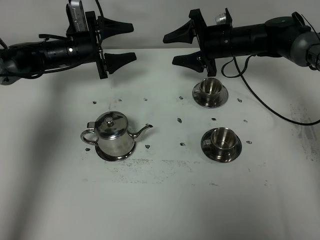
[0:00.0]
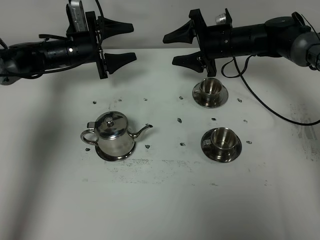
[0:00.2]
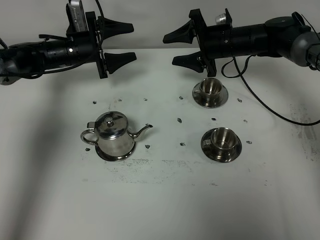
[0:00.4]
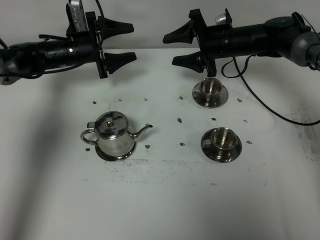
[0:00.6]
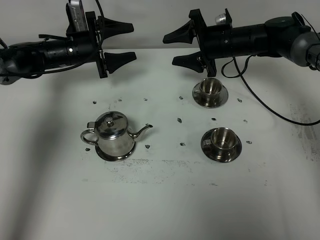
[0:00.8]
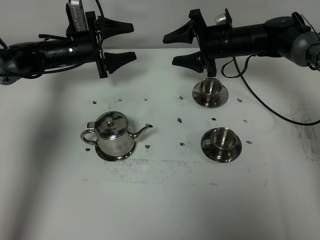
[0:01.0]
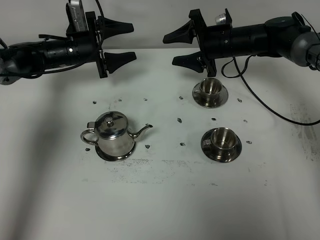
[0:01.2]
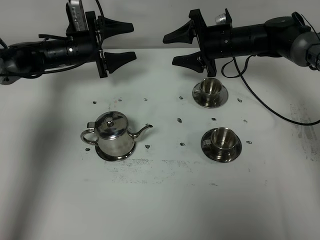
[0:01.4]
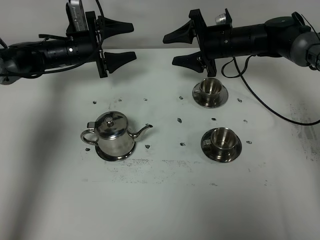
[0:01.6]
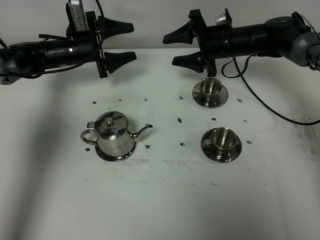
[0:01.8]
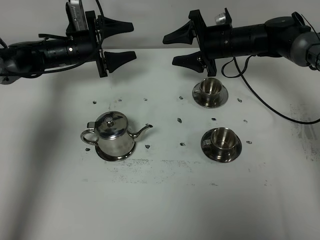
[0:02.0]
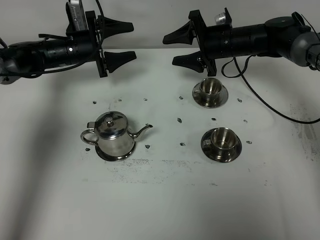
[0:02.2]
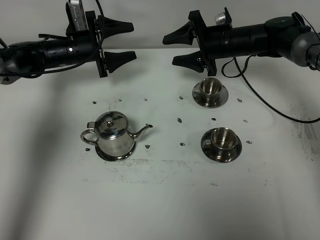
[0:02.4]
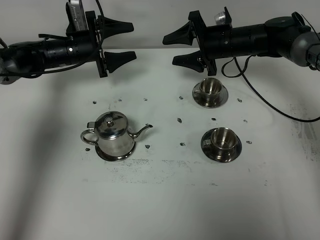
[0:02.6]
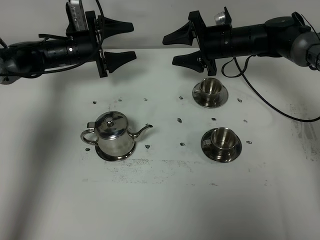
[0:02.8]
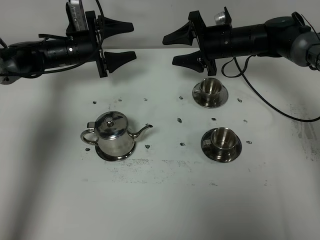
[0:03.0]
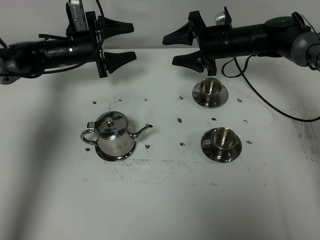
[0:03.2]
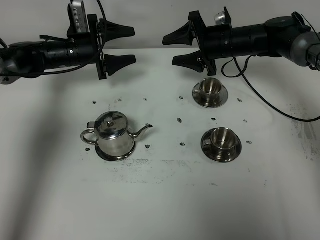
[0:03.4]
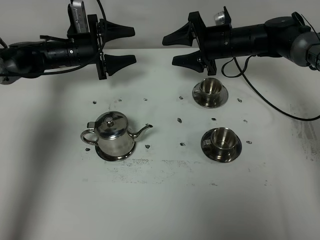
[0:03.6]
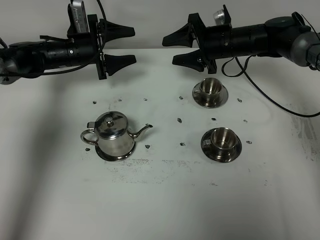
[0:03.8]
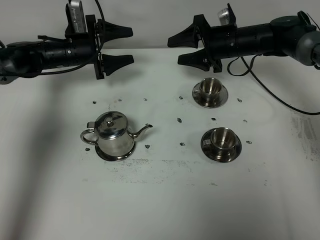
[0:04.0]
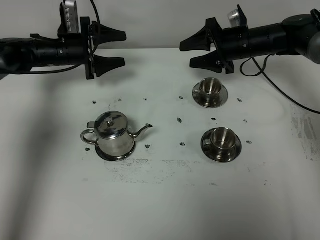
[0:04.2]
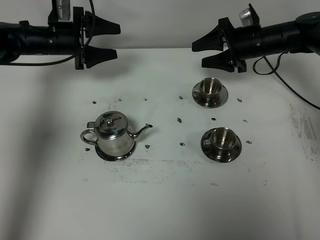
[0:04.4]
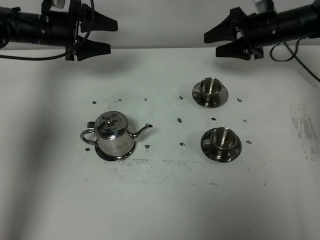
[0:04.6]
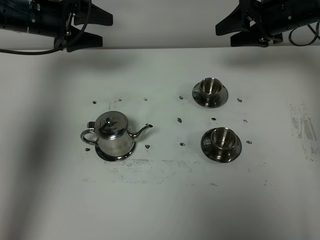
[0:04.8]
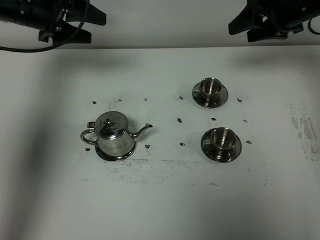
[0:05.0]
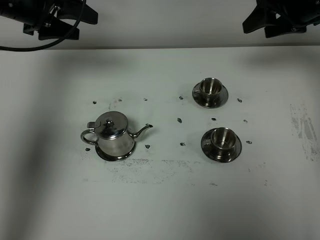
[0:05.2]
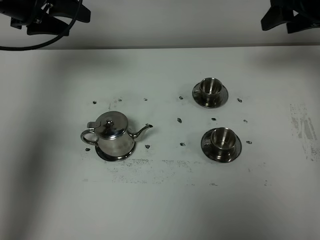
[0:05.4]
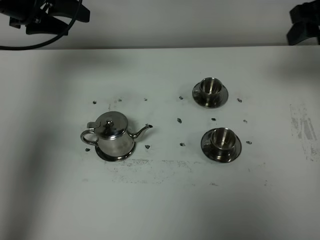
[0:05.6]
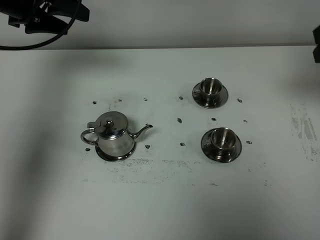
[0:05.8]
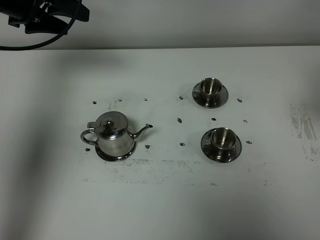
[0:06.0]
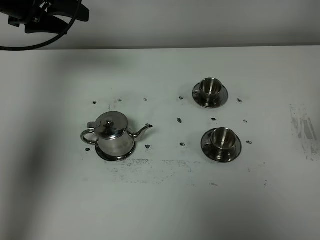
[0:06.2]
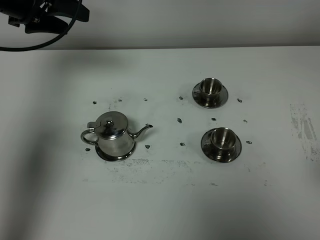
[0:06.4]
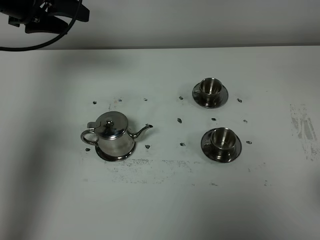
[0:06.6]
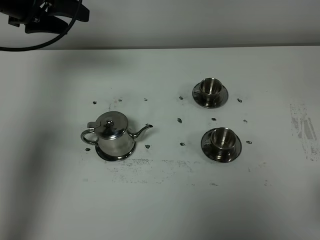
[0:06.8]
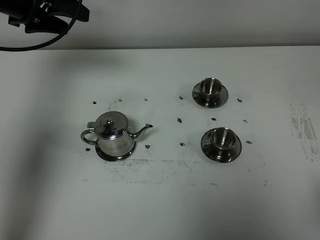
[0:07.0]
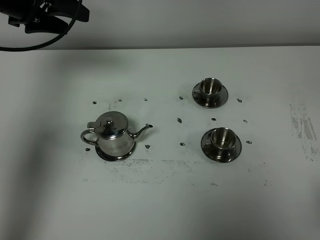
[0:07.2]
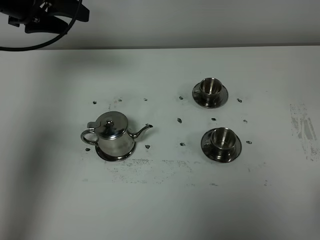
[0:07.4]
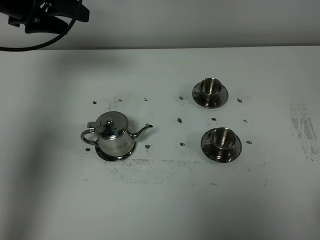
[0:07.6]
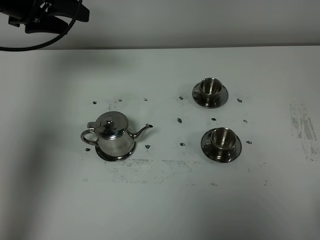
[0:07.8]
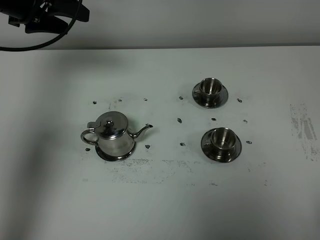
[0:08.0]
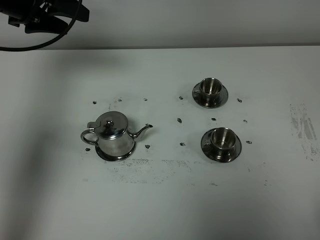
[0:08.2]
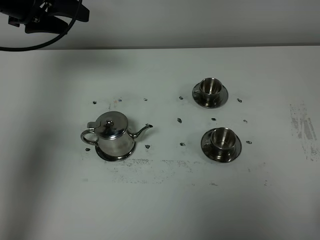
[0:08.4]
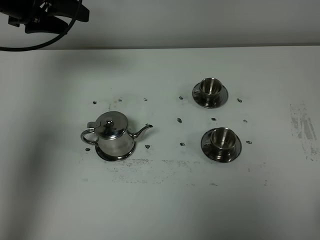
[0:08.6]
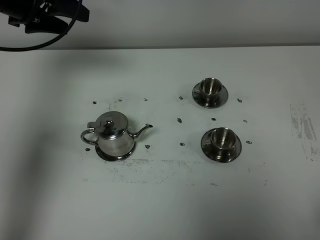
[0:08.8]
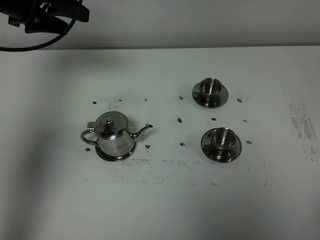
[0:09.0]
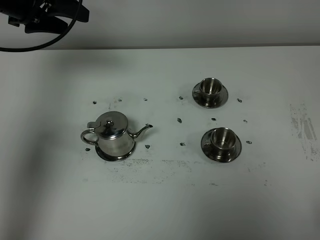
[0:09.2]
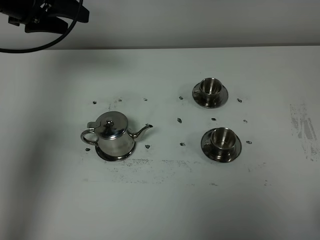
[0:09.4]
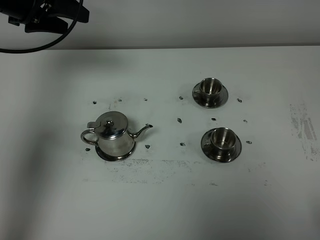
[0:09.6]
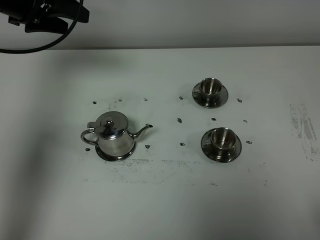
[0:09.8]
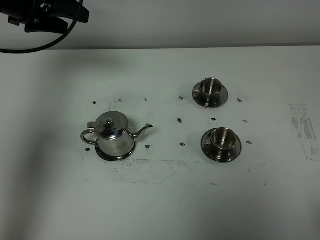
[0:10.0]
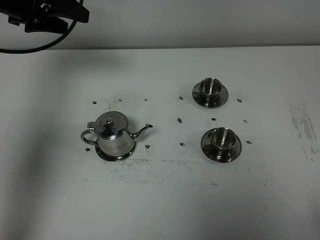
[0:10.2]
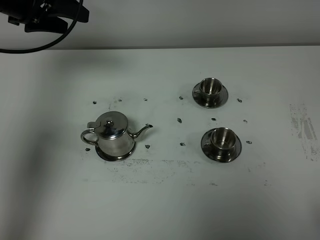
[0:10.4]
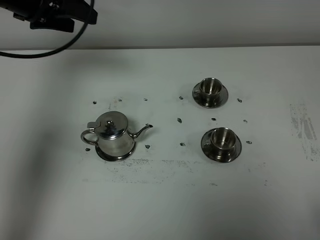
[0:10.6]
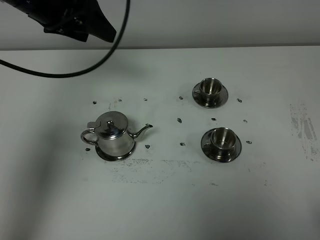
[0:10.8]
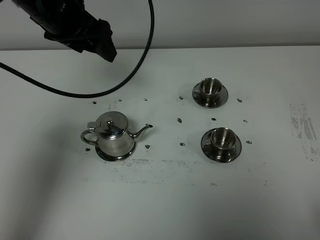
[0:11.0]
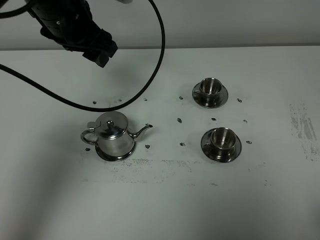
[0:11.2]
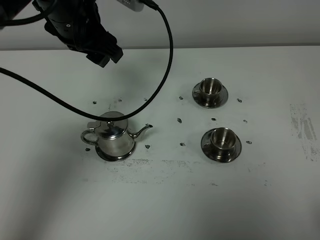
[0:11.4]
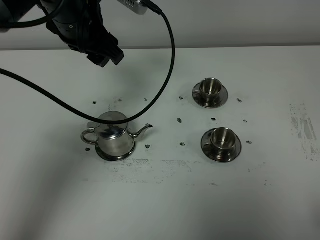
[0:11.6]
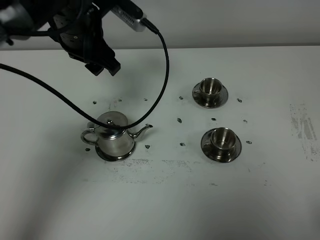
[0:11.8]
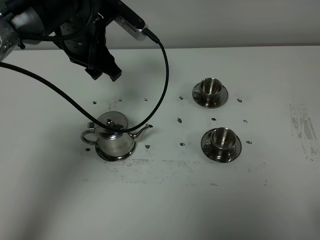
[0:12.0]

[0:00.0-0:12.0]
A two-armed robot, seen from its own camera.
Task of the whole recording: grasp the stainless steel teapot and pour the tea into the two stainless steel teacups one by one, put the stainless steel teapot back in its original place.
0:00.0 to 0:03.0: The two grippers keep their place.
0:03.0 to 0:04.4: The right gripper heads to the right, covering about 5 cm. The left gripper moves some 5 cm.
0:04.4 to 0:06.0: The left gripper moves upward and backward, approximately 15 cm, while the right gripper travels backward and upward by about 30 cm.
0:07.6 to 0:10.4: Neither gripper changes place.
0:10.4 to 0:12.0: The left gripper heads to the right, covering some 15 cm.

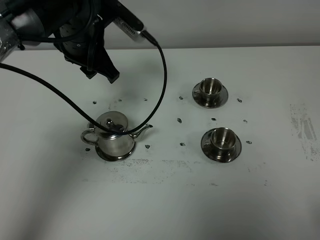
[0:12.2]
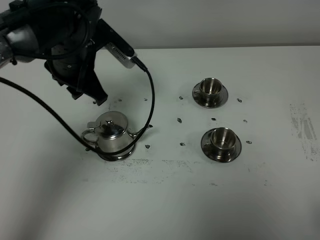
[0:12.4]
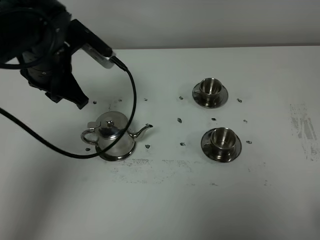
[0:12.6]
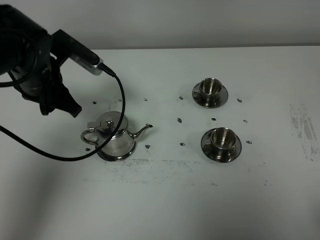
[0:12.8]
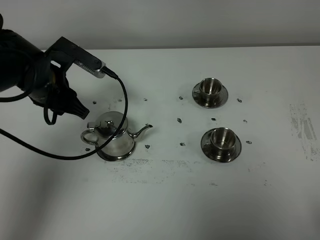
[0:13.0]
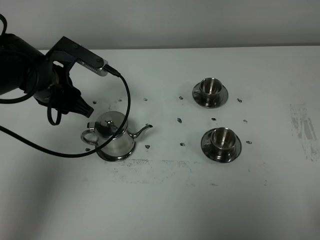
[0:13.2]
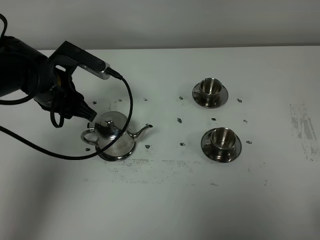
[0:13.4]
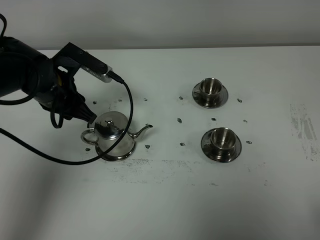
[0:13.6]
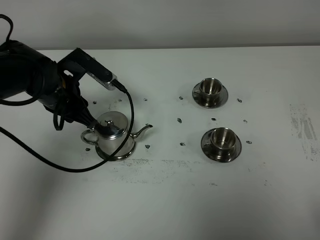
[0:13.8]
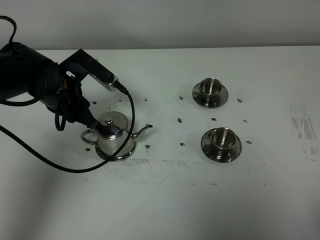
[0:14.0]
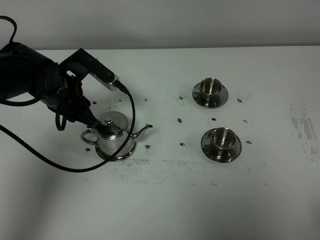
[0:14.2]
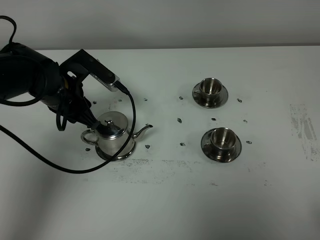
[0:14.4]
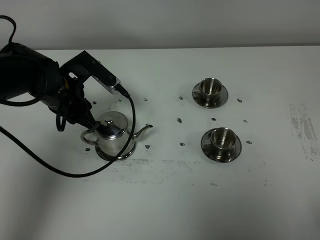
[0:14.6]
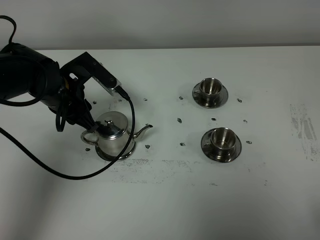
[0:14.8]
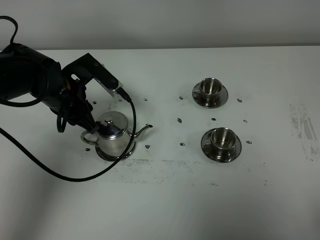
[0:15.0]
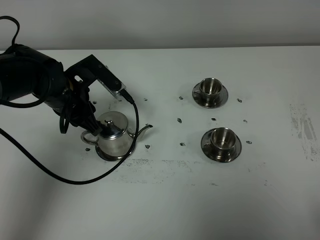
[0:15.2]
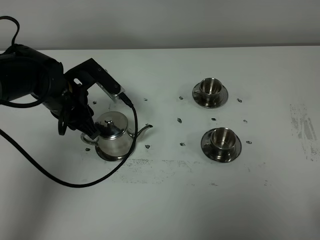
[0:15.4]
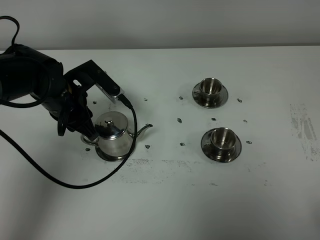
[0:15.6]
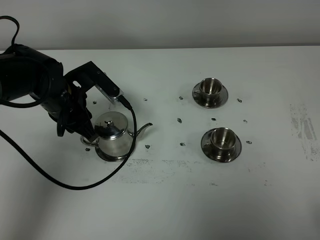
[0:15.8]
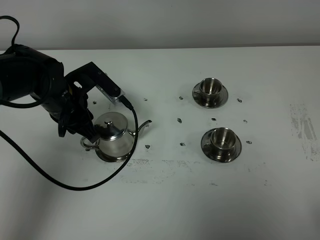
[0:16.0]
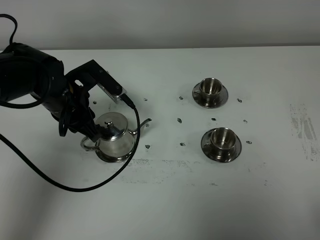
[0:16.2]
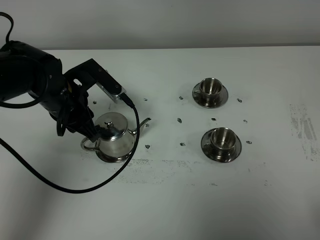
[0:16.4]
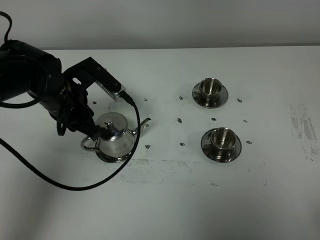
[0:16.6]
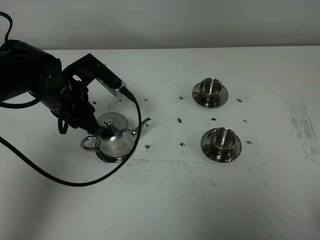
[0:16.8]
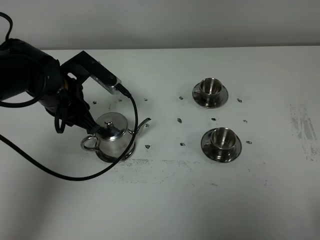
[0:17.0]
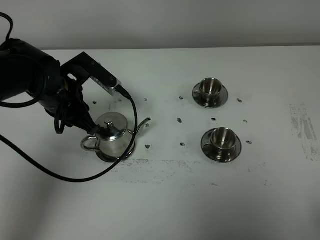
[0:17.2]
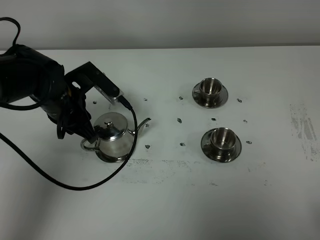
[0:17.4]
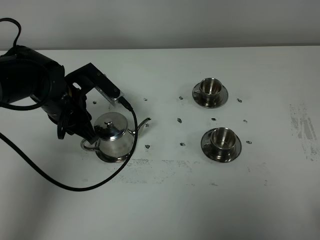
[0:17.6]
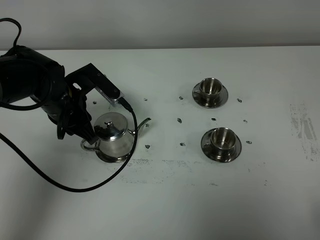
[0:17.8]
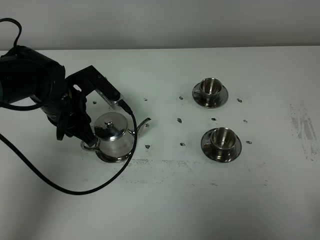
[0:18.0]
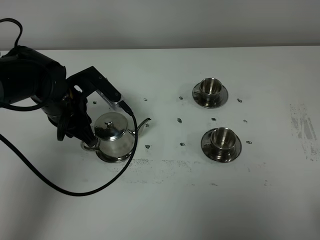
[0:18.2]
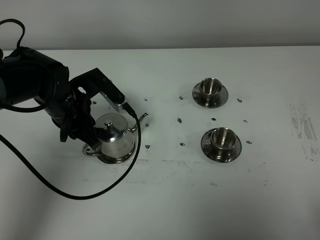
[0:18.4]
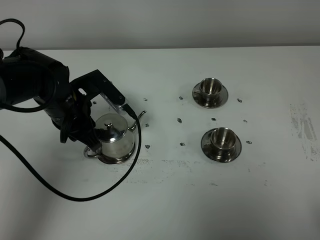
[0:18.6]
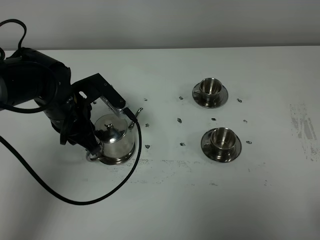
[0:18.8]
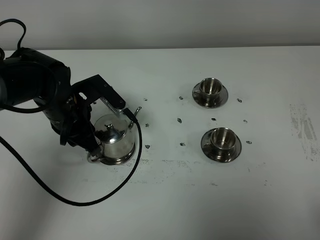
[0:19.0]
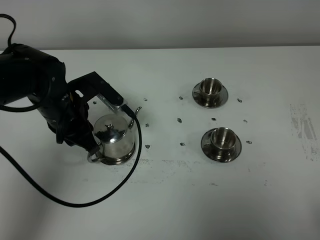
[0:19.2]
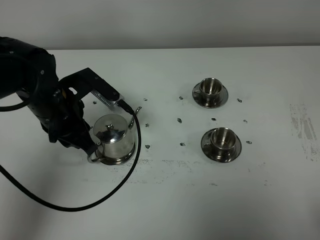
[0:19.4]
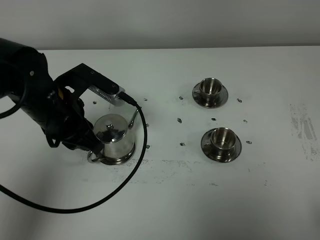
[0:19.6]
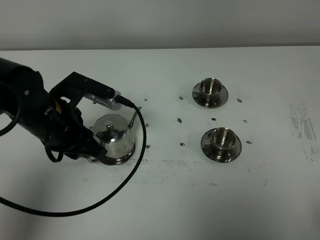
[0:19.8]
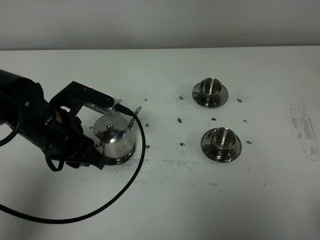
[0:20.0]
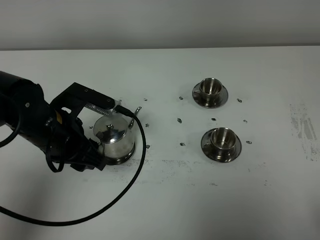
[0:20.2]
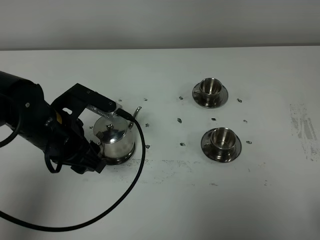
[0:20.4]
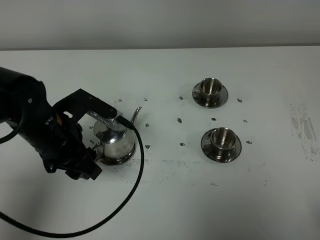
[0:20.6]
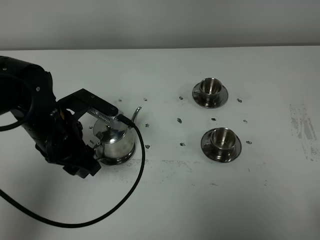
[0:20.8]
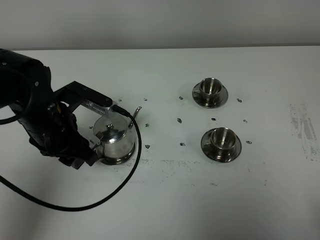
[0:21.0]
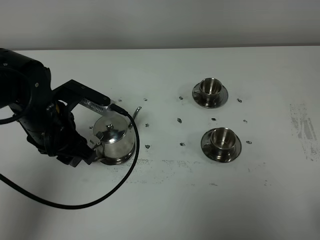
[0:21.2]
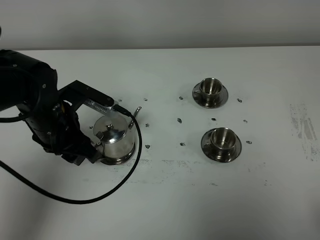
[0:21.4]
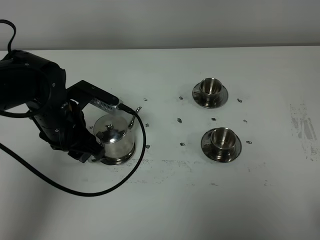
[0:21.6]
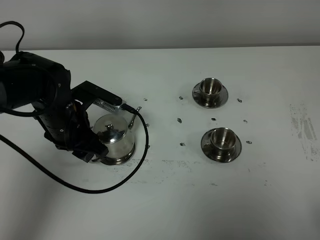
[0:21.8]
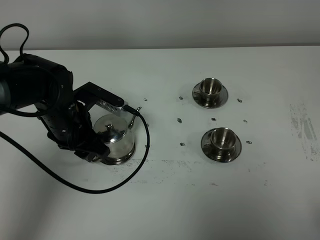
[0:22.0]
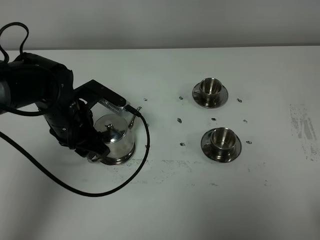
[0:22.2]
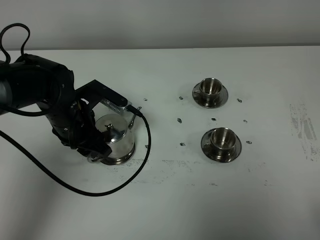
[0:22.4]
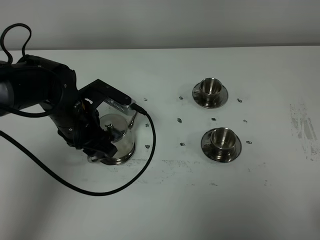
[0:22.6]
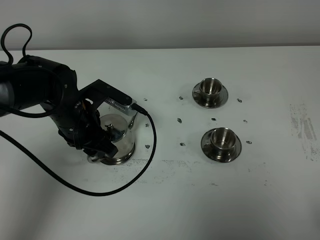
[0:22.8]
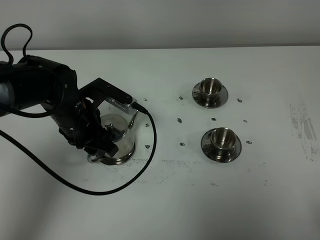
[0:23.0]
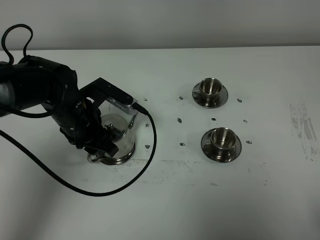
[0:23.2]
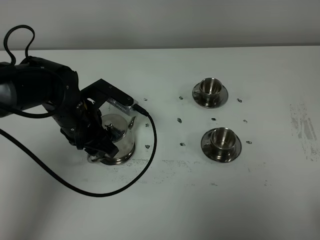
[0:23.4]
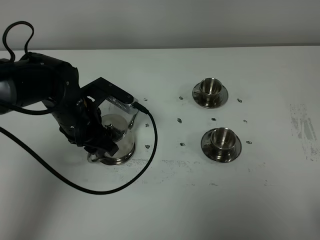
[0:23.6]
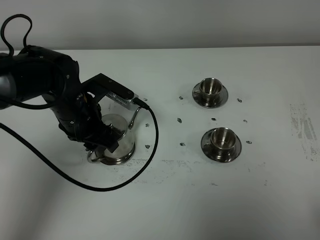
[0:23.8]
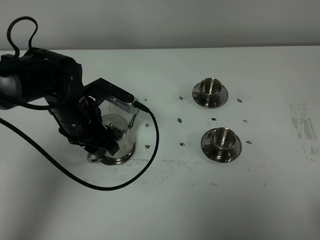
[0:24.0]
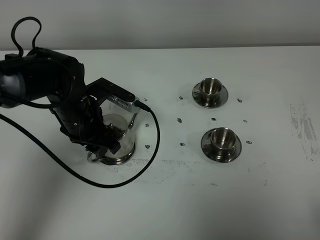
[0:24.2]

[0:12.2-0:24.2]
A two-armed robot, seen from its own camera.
Task of the whole recording: grasp the stainless steel teapot and pour the tea into the two stainless steel teacups one by one, put the stainless steel teapot back in its original place.
0:12.2 to 0:13.8: The left gripper travels downward and to the left by approximately 10 cm.
0:13.8 to 0:18.2: The grippers stay close to where they were, moving slightly.
0:18.2 to 0:19.8: The left gripper is displaced backward by about 5 cm.
0:19.8 to 0:21.2: The grippers move only a little.
0:21.2 to 0:22.6: The left gripper shifts by approximately 5 cm.
0:22.6 to 0:24.2: Both grippers stay put.
